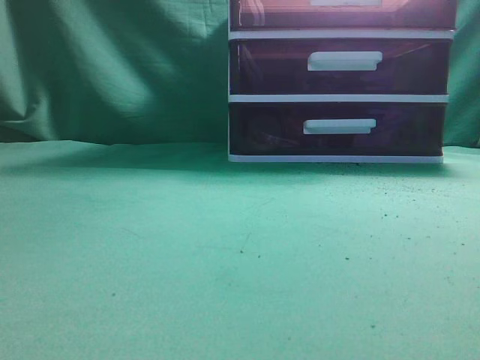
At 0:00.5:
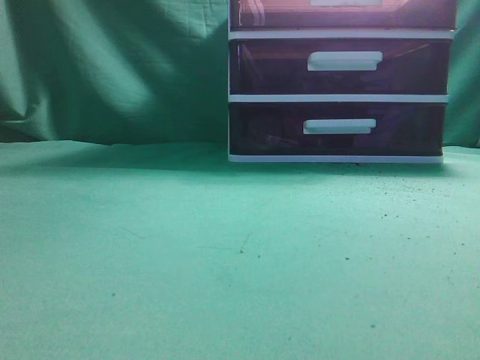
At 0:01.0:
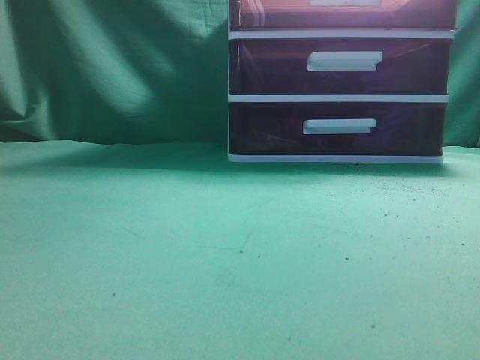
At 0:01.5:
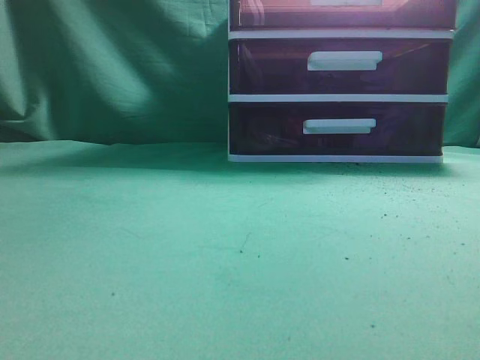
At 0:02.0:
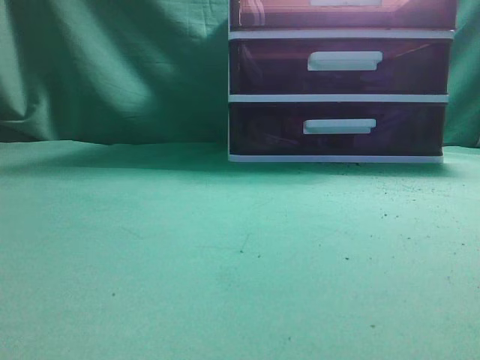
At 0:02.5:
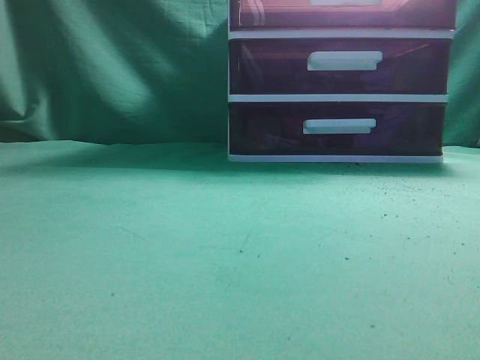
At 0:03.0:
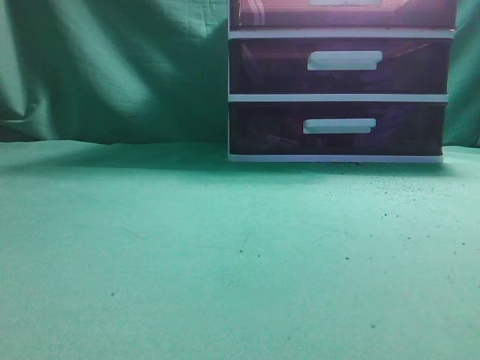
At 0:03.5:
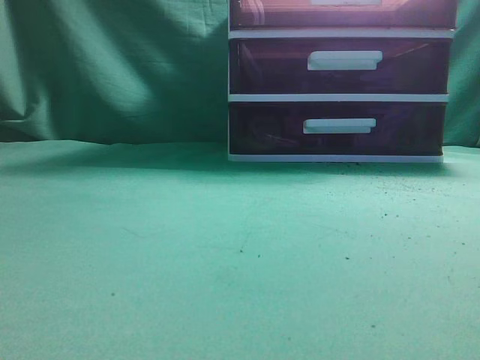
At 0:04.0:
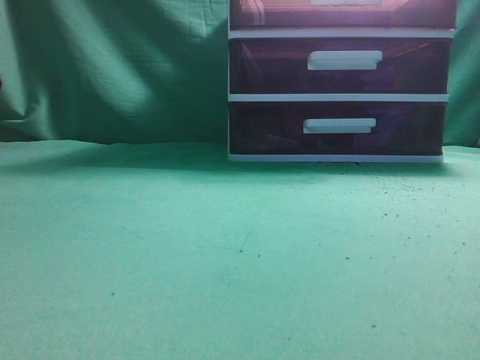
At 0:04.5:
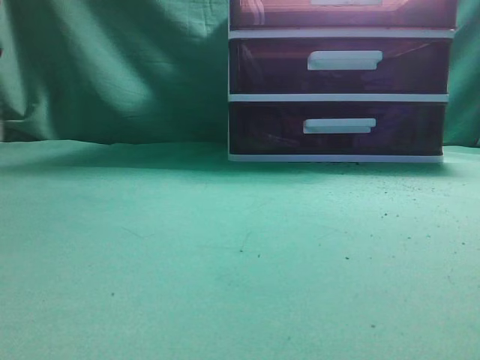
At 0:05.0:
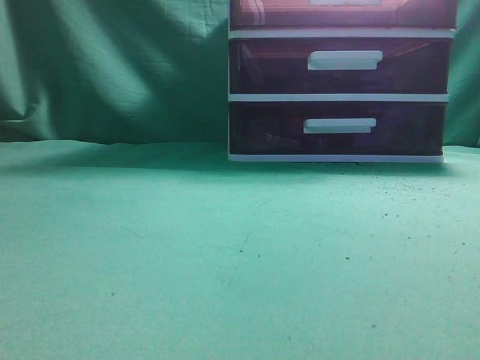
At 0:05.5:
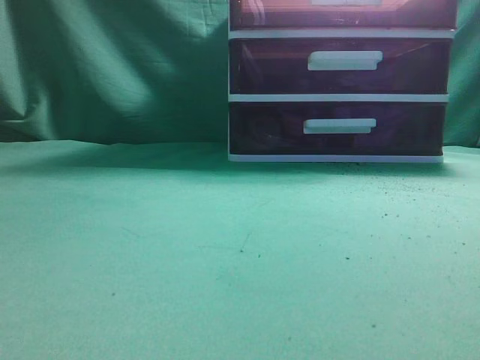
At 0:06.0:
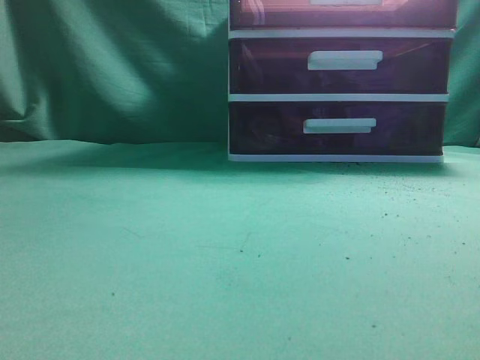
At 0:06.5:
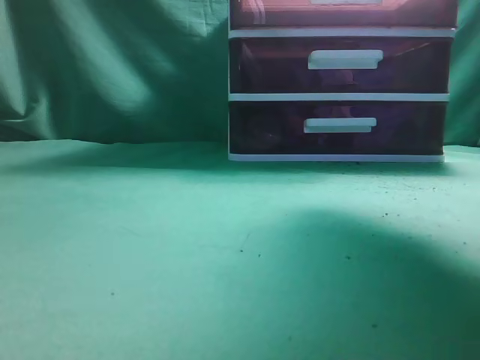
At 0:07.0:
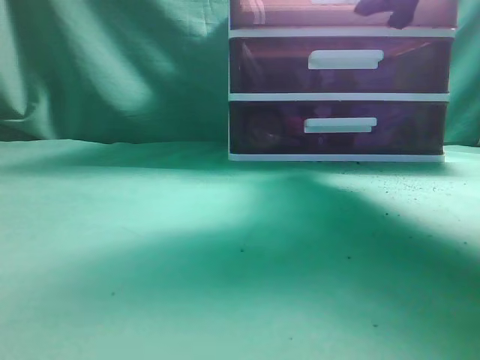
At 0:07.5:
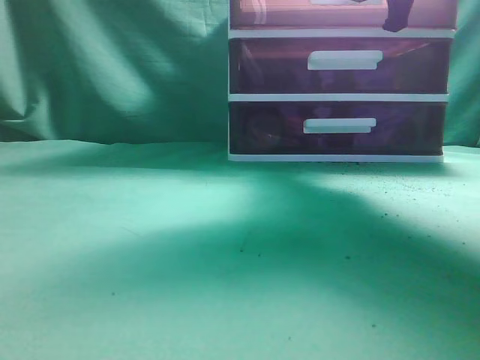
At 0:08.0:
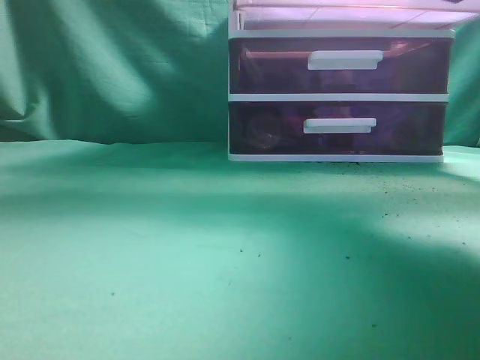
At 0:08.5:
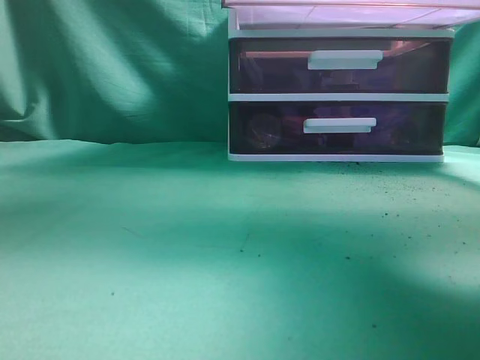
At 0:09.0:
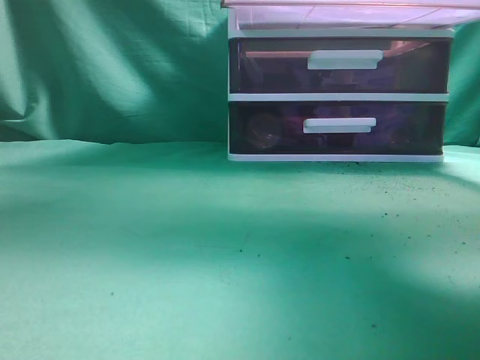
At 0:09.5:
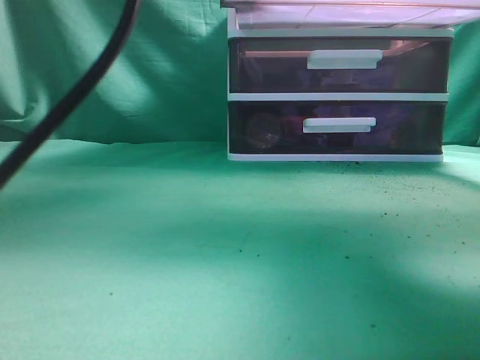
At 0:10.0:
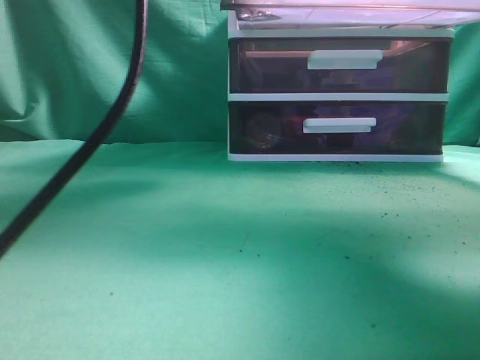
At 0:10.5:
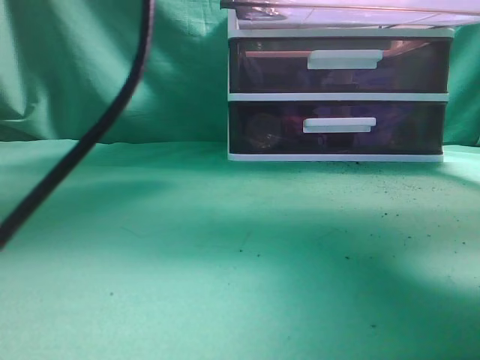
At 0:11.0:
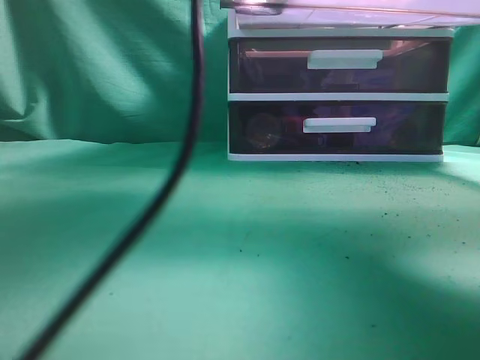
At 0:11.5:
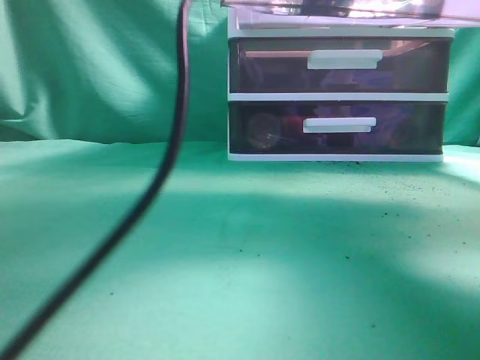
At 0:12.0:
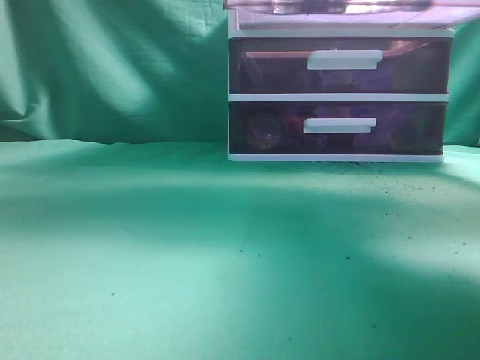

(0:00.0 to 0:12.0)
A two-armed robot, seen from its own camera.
Task of the whole recording: place the water bottle into the drawer.
Step, 0:00.0 - 0:08.5: Open the drawer.
Step, 0:09.0 - 0:11.5: Place the water bottle inside the drawer.
0:06.0 - 0:08.0: The right gripper goes some 15 cm forward, downward and to the left, and opens, then closes once more.
0:08.0 - 0:10.0: The left gripper shifts some 25 cm forward and to the right.
0:10.0 - 0:12.0: The left gripper travels upward, backward and to the left by about 15 cm, and closes.

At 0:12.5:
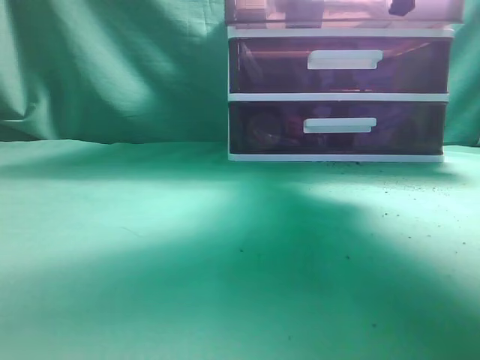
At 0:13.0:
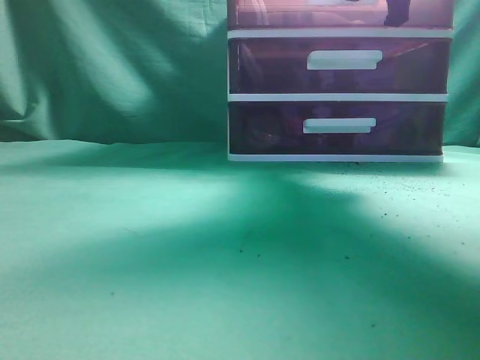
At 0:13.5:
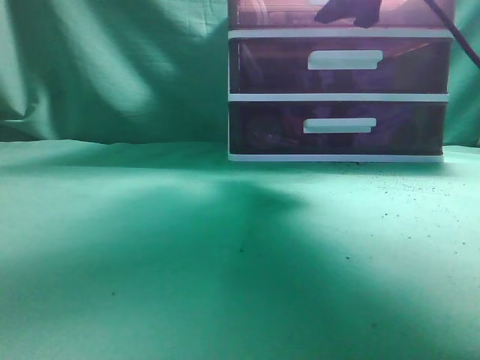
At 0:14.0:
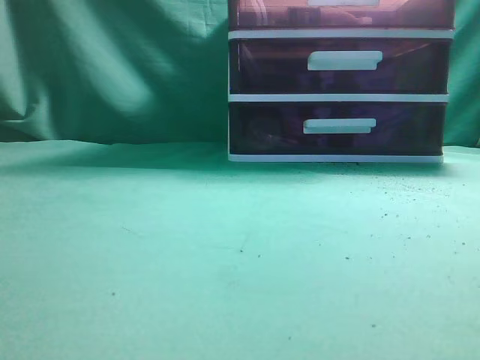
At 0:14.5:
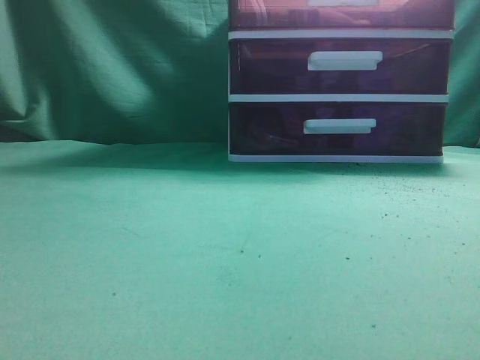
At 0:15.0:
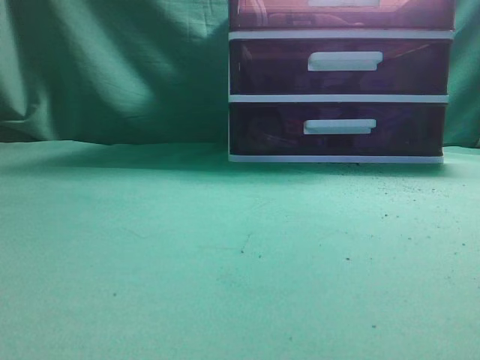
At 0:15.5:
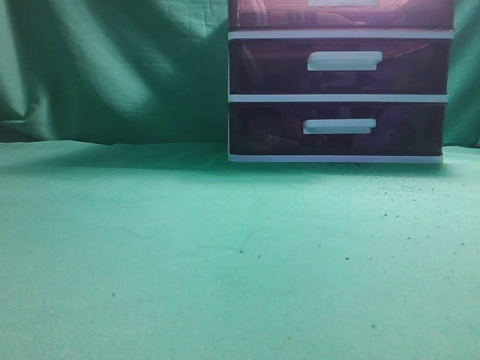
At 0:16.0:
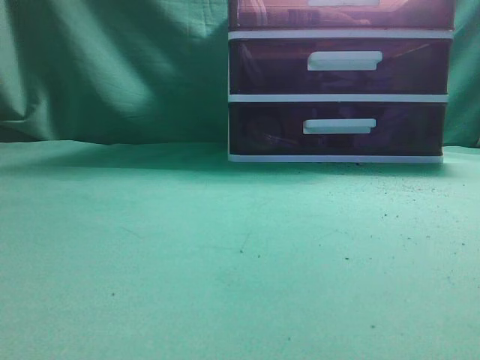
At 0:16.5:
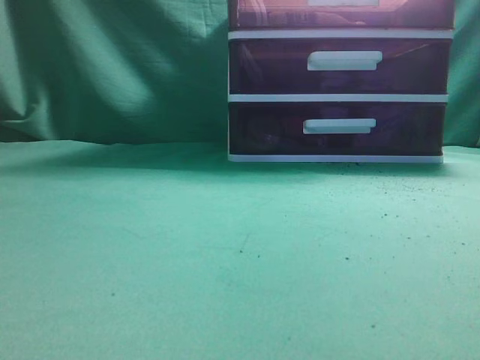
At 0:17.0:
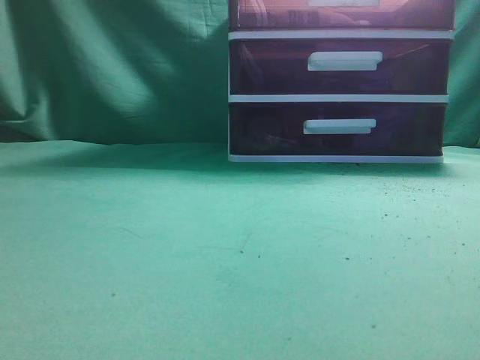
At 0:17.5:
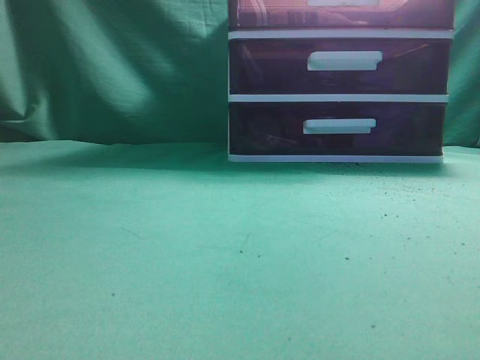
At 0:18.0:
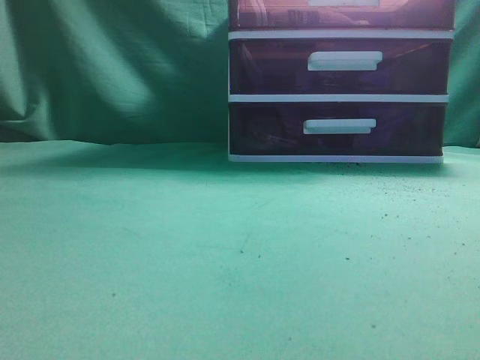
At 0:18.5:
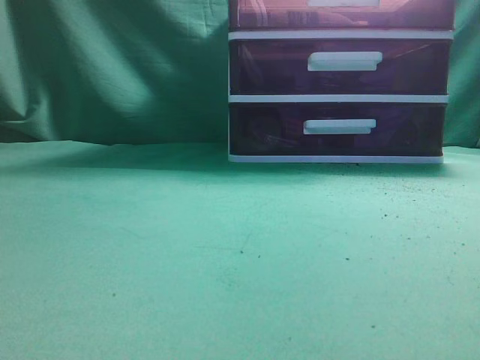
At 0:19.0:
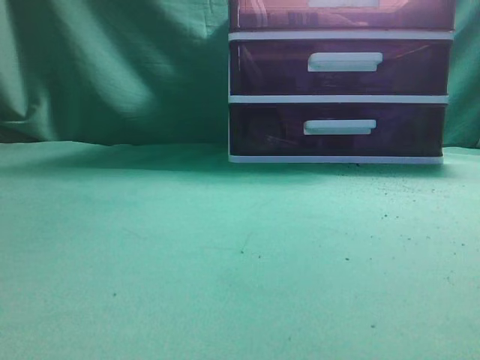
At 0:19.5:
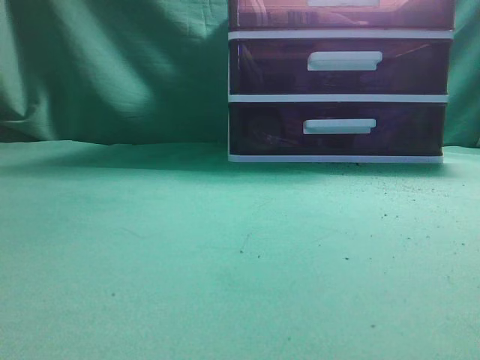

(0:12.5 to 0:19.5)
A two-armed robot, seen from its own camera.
Task of the whole recording: place the water bottle into the drawer.
Step, 0:12.5 - 0:13.5: Close the drawer.
0:12.5 - 0:14.5: The right gripper travels backward and upward by about 25 cm, and opens, then closes again. Meanwhile the left gripper travels backward, downward and to the left by roughly 20 cm.

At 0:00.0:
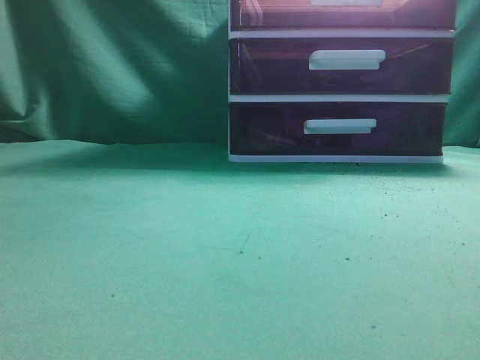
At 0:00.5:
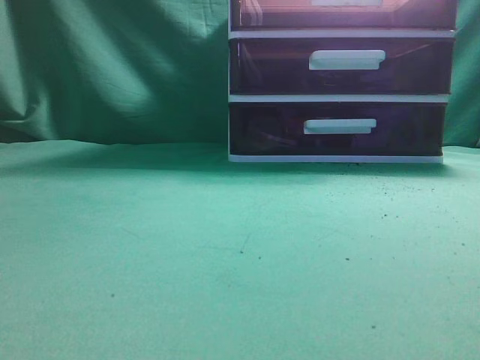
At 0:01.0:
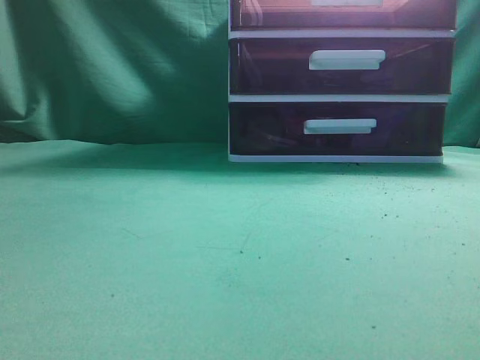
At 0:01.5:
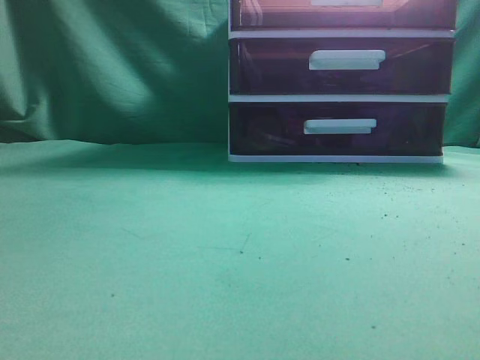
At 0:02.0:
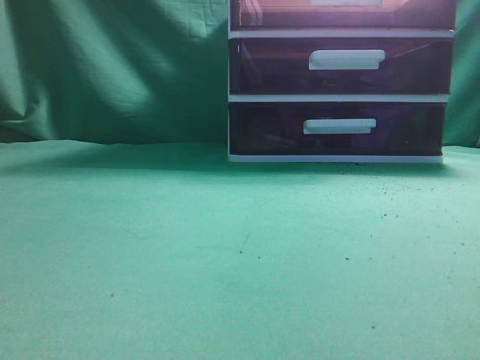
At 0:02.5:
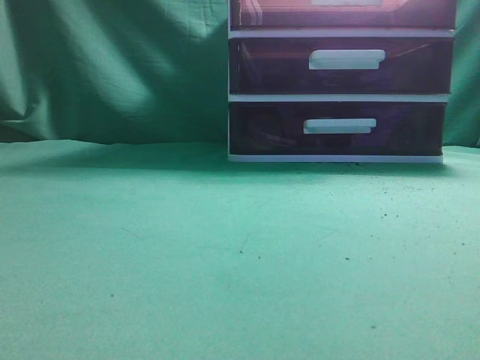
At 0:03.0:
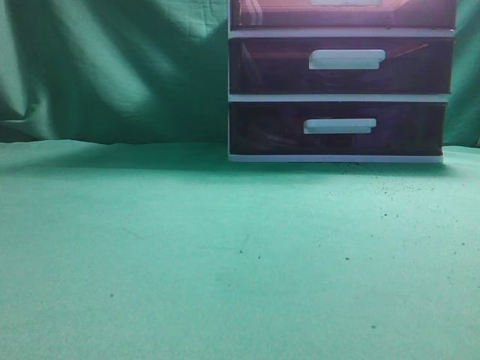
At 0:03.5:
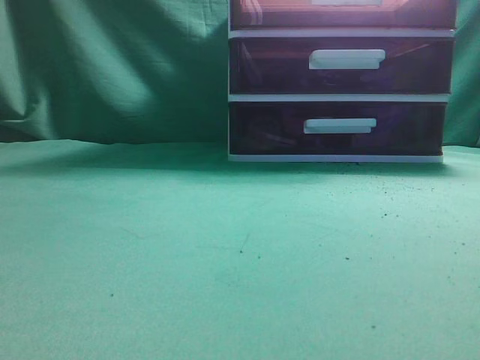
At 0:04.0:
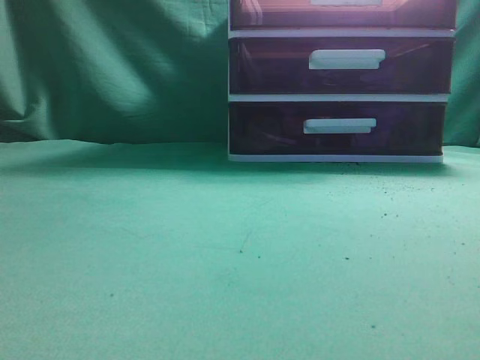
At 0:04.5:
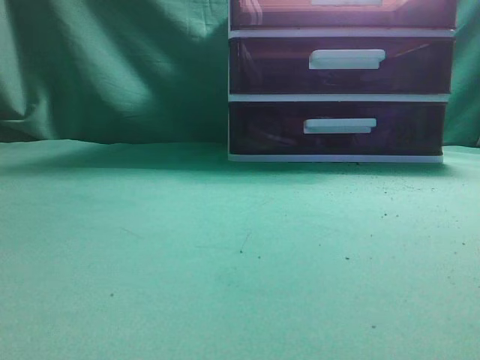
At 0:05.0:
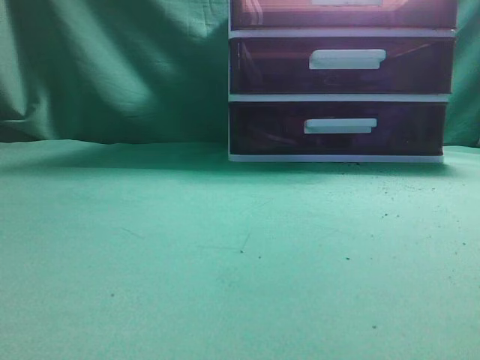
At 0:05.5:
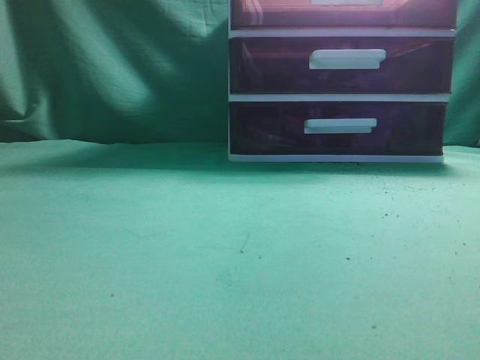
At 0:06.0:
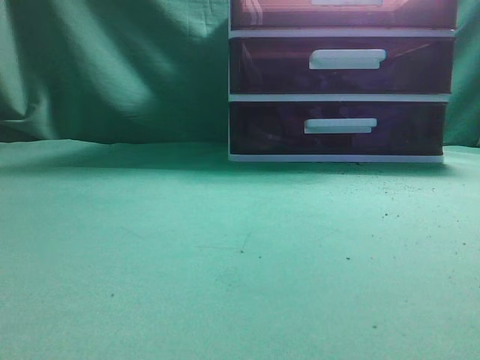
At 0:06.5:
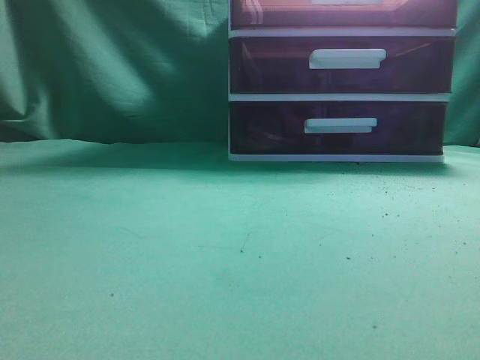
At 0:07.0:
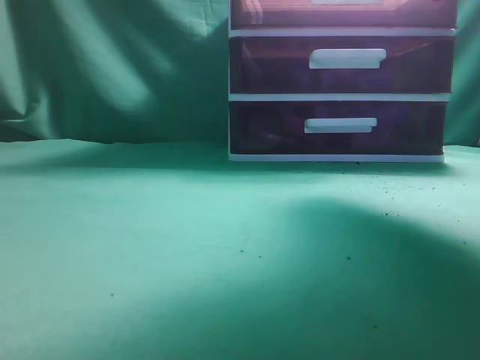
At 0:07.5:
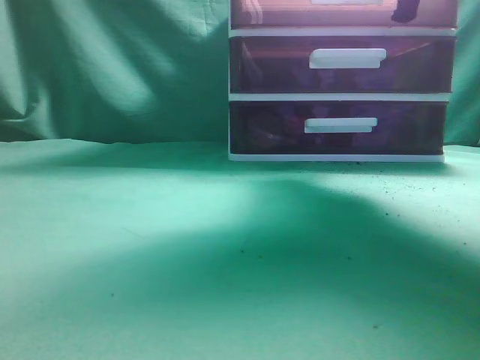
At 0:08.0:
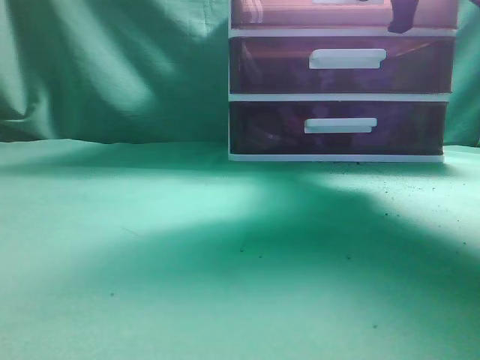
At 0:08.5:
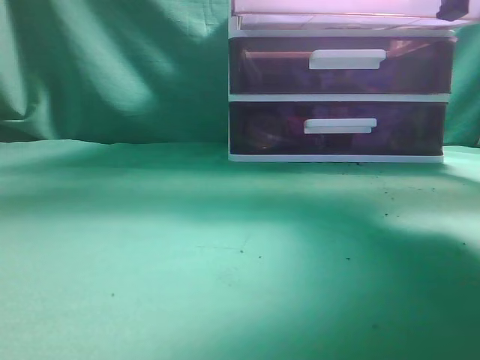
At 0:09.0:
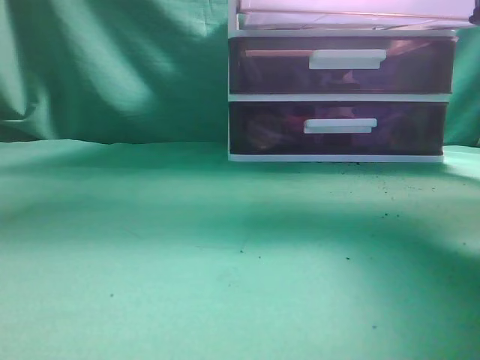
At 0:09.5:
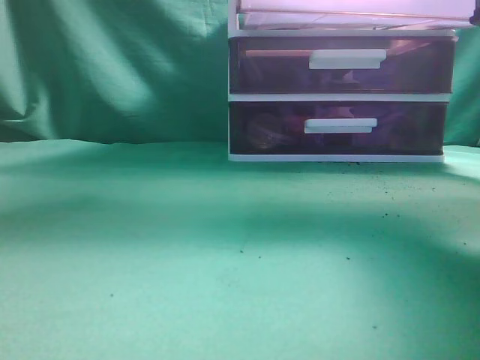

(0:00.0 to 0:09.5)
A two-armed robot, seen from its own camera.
Task of the whole recording: place the water bottle into the drawer.
0:05.5 - 0:07.5: The right gripper goes about 35 cm forward, and opens up.
0:07.5 - 0:09.5: The left gripper goes roughly 15 cm upward, forward and to the right; the right gripper is displaced backward by about 10 cm.
